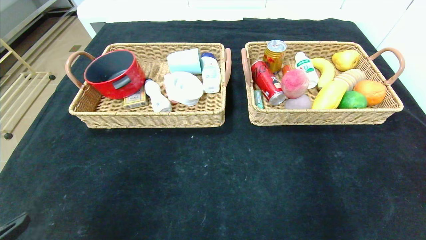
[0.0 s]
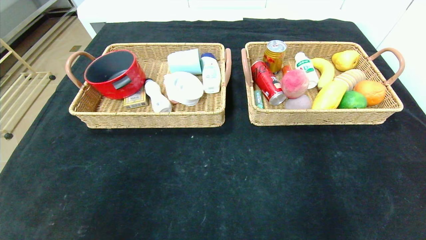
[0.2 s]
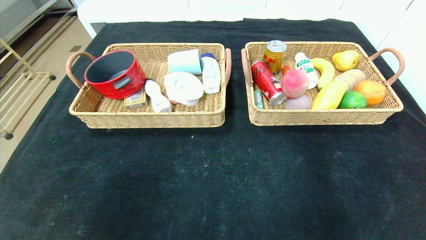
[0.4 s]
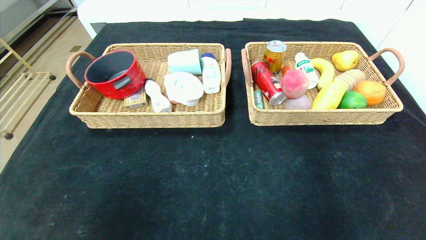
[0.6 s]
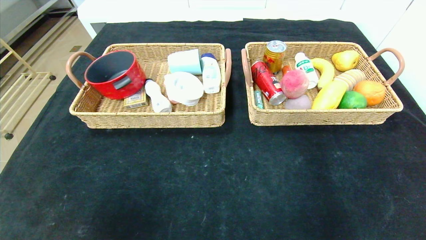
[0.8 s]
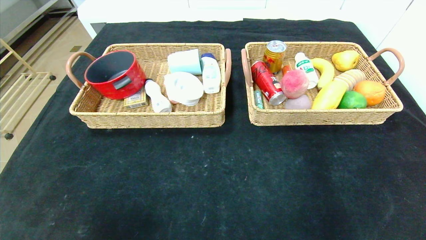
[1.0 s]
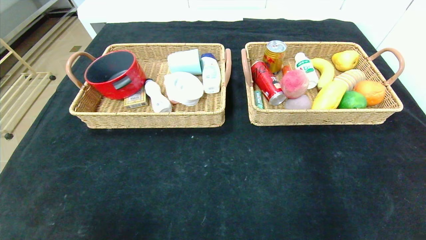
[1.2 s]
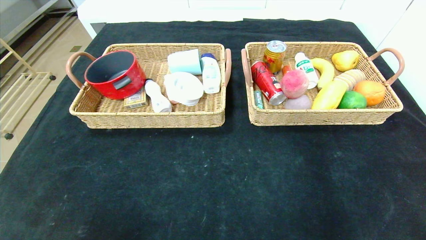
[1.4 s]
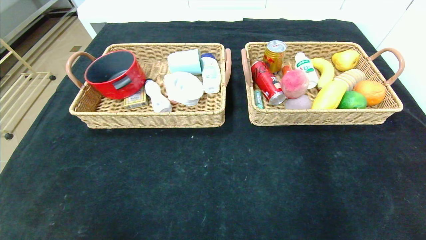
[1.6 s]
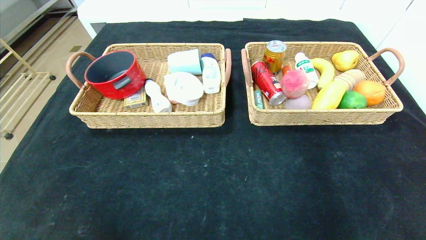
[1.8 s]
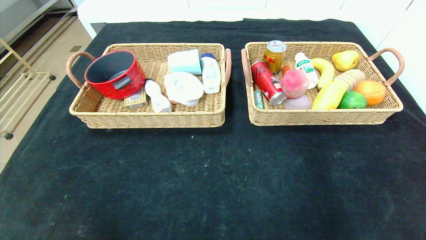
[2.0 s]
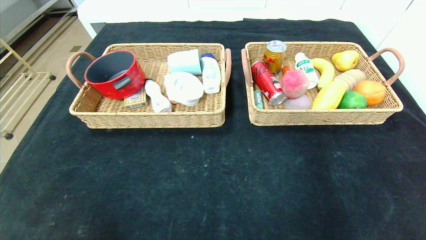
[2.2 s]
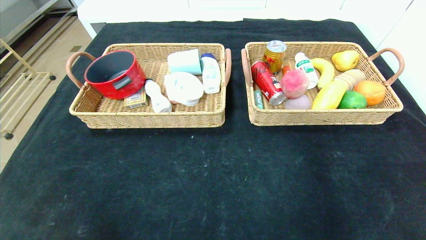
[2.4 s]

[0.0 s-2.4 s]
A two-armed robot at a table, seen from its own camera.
0.0 to 1.2 s: The left gripper travels downward and backward by approximately 10 cm.
